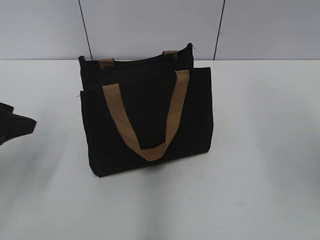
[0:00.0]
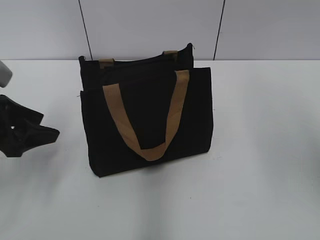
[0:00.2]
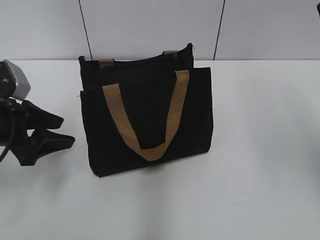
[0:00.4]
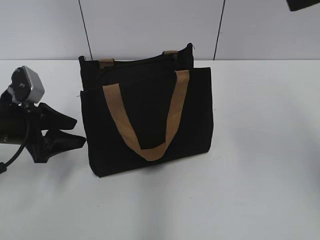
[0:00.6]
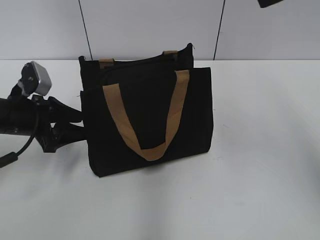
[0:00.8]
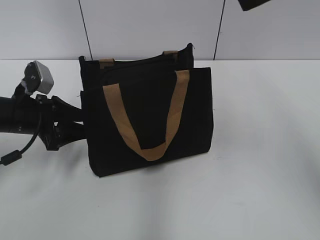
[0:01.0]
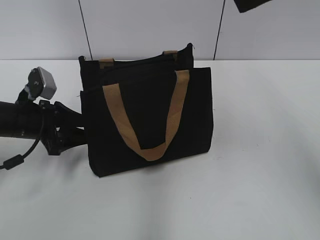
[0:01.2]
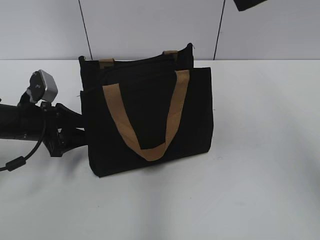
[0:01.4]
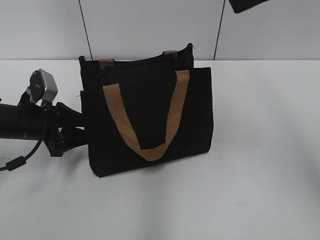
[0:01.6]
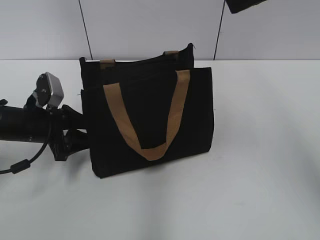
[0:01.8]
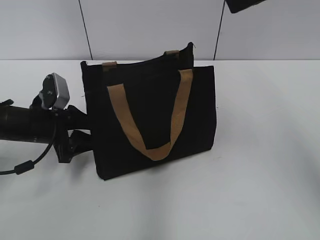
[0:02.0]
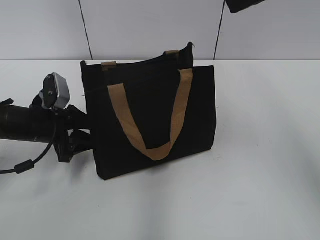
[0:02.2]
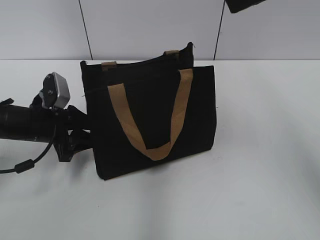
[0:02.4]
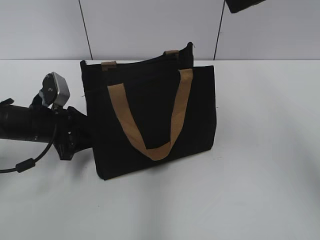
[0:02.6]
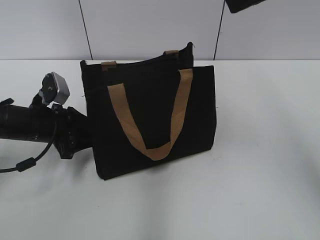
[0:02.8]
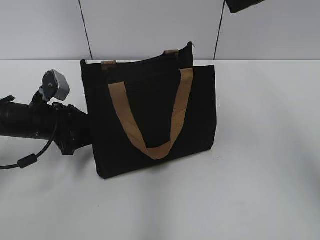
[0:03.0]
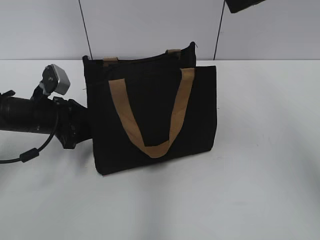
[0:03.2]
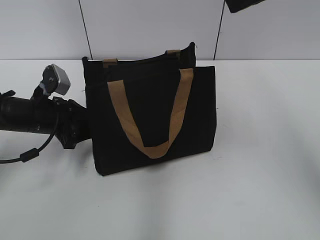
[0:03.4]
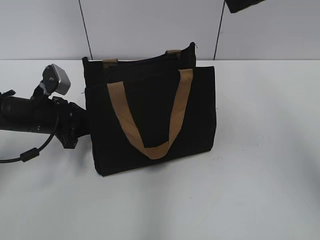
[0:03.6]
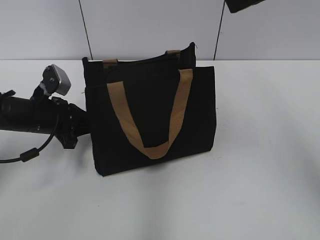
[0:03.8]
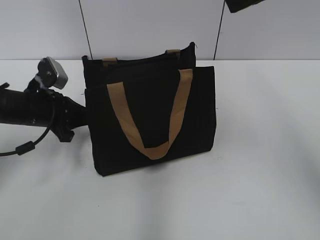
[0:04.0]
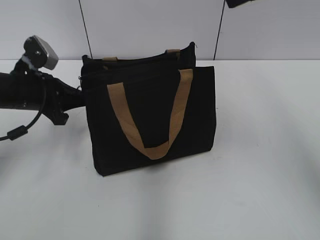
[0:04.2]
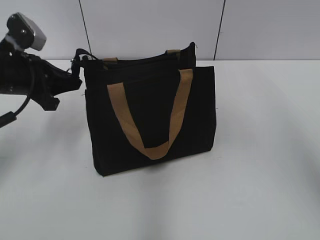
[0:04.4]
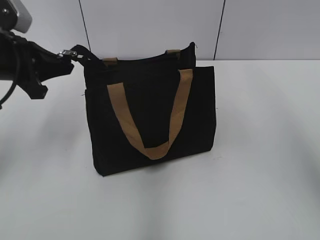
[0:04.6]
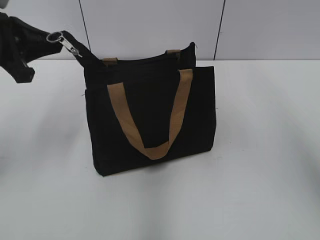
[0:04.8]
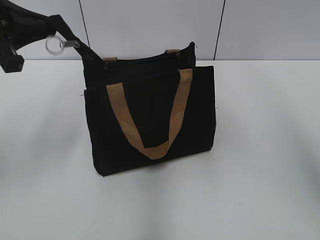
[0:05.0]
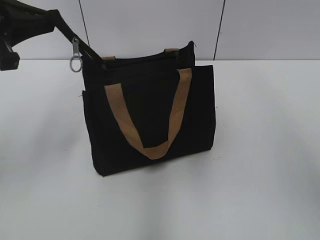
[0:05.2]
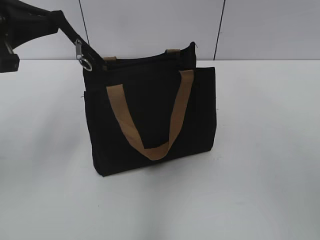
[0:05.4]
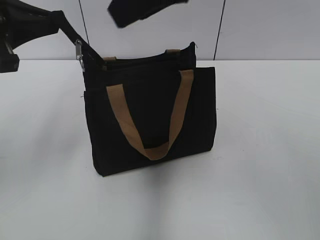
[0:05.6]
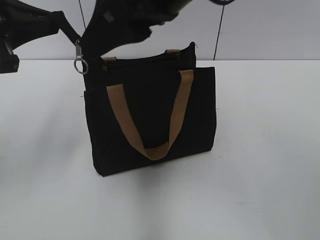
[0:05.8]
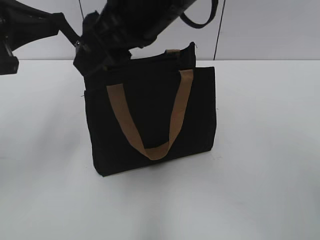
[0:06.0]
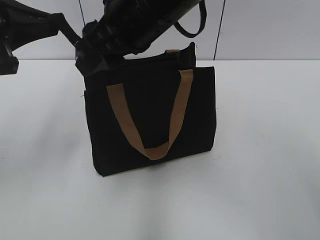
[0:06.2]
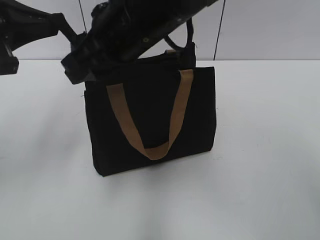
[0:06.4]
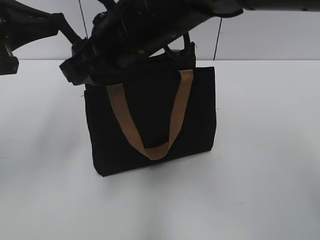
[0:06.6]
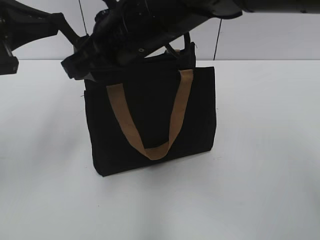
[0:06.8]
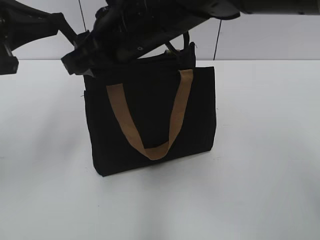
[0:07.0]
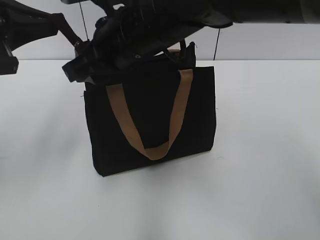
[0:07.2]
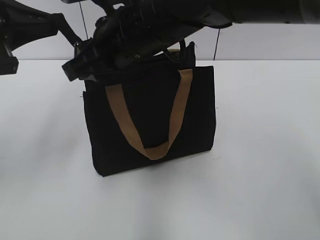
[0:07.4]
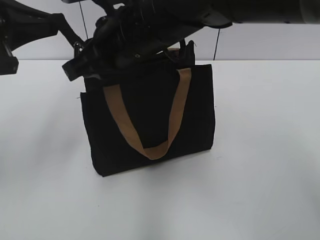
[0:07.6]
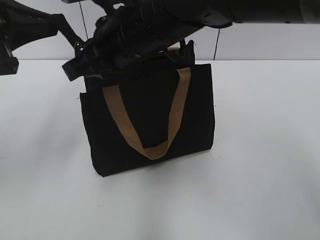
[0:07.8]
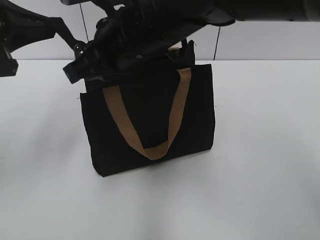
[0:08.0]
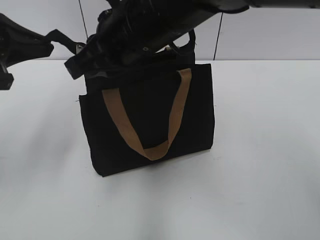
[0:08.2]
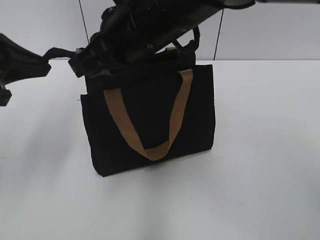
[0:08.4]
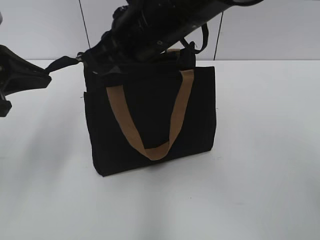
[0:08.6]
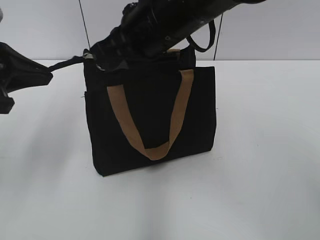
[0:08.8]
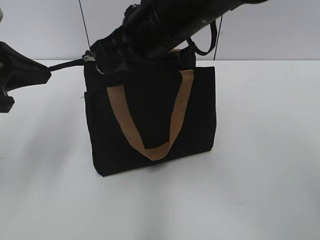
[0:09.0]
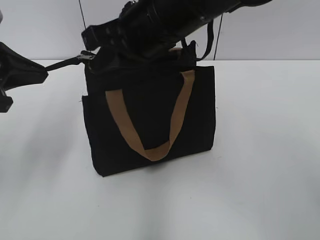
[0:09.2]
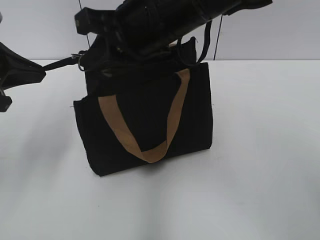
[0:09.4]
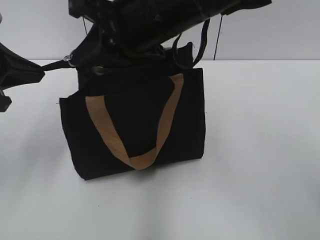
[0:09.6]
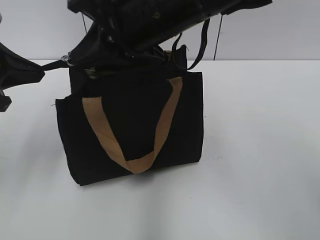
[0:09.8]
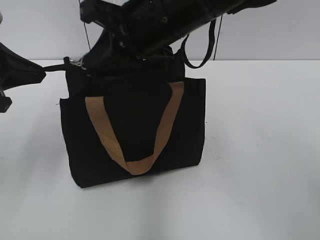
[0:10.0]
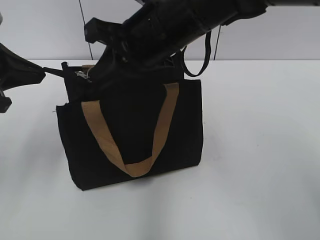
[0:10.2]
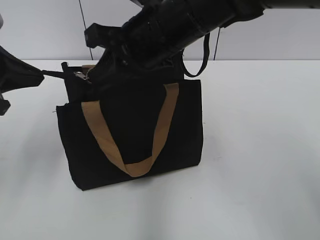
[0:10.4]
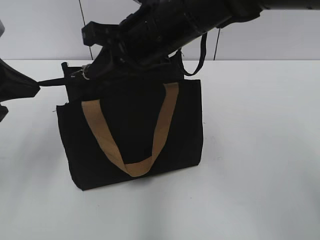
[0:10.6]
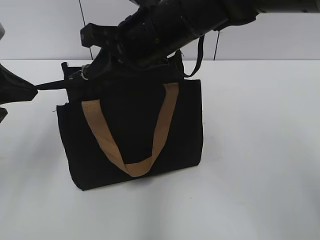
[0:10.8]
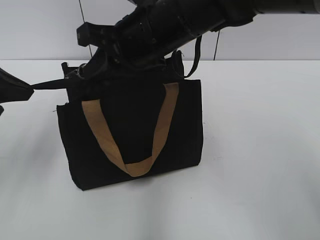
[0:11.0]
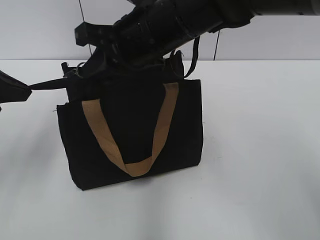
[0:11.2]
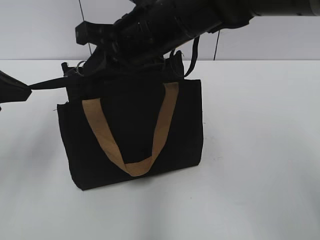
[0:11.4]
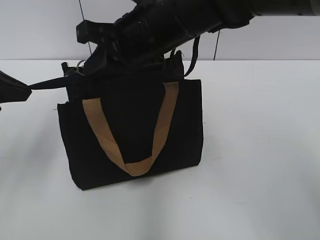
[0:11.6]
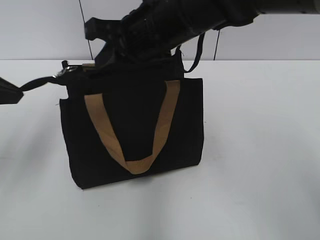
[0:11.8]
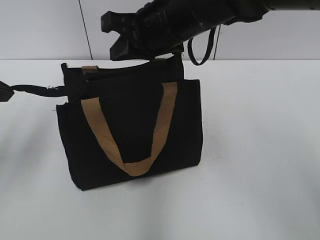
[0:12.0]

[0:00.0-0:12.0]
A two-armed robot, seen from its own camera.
0:00.0 to 0:01.6: The left gripper heads downward and forward, covering about 15 cm.
0:01.6 to 0:03.0: The grippers stay close to where they were, moving slightly.
0:03.0 to 0:04.4: The left gripper goes approximately 10 cm upward, and closes up.
0:04.4 to 0:06.0: The right gripper shifts about 20 cm to the left and downward; the left gripper moves upward and backward, some 15 cm.
0:06.0 to 0:07.6: The right gripper moves downward, about 5 cm, and closes up.
0:07.6 to 0:09.0: There are only small adjustments of the grippers.
0:10.4 to 0:12.0: The grippers make only small movements.

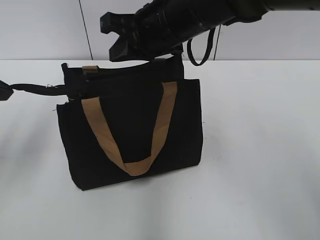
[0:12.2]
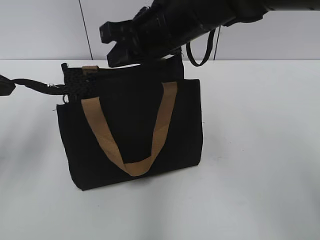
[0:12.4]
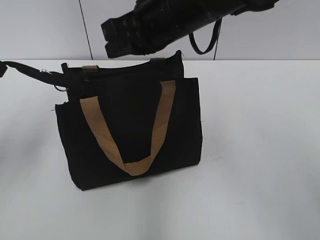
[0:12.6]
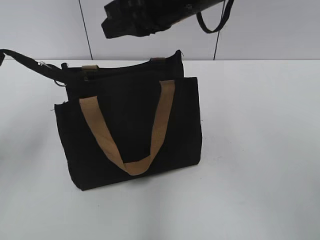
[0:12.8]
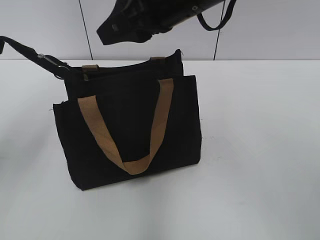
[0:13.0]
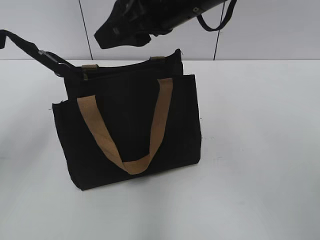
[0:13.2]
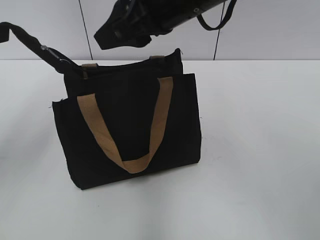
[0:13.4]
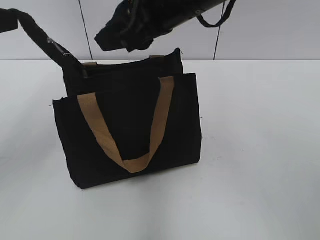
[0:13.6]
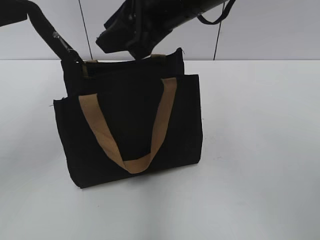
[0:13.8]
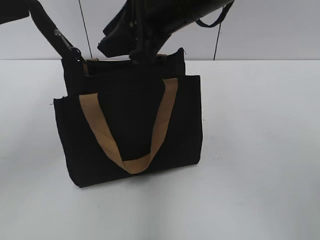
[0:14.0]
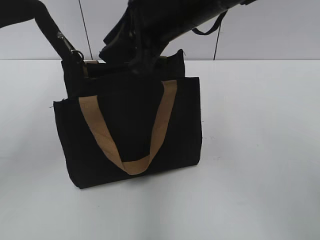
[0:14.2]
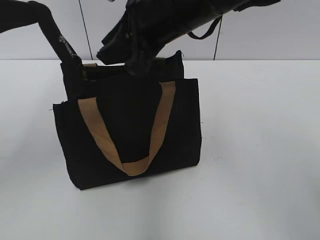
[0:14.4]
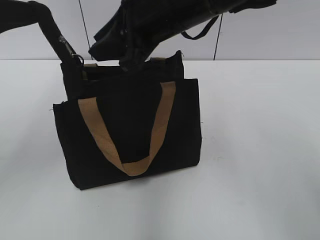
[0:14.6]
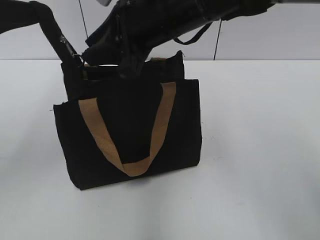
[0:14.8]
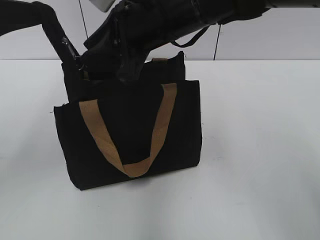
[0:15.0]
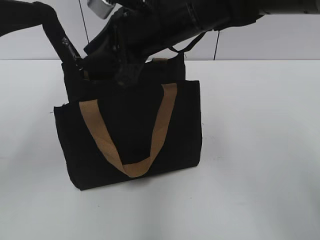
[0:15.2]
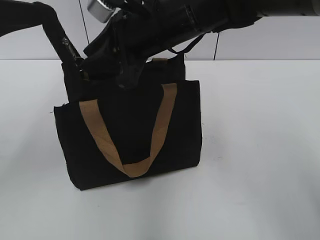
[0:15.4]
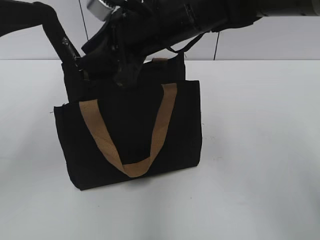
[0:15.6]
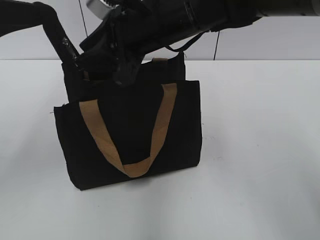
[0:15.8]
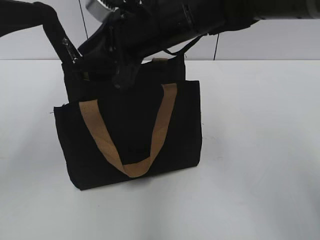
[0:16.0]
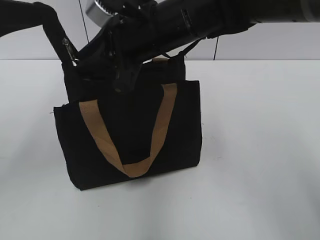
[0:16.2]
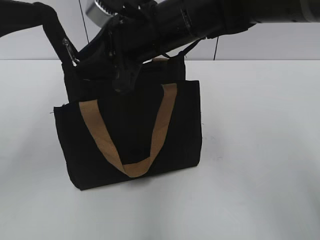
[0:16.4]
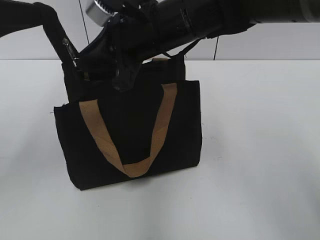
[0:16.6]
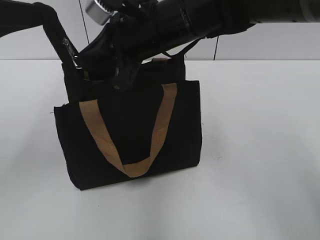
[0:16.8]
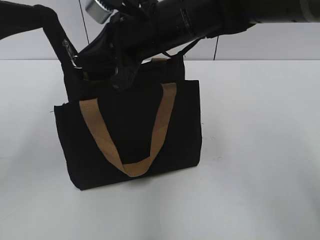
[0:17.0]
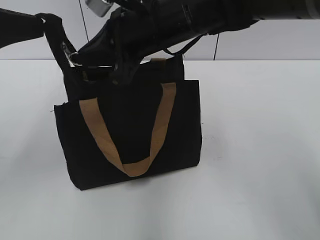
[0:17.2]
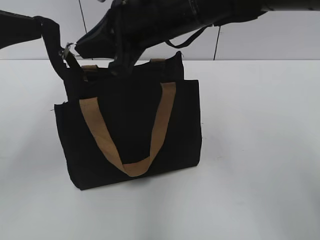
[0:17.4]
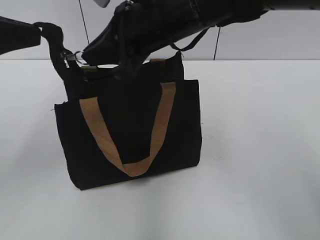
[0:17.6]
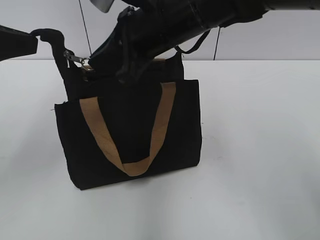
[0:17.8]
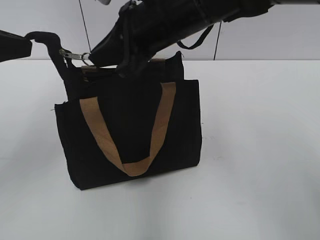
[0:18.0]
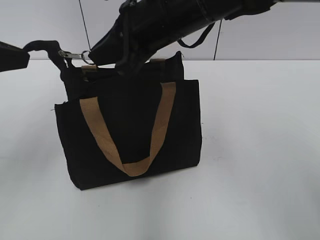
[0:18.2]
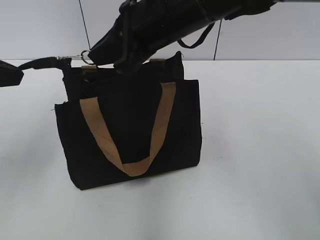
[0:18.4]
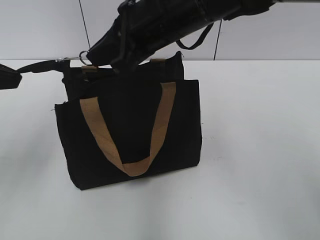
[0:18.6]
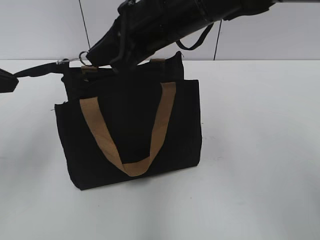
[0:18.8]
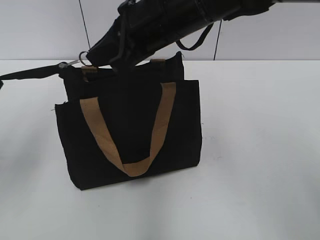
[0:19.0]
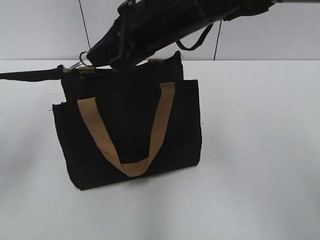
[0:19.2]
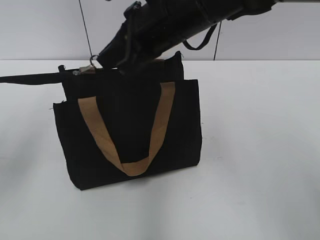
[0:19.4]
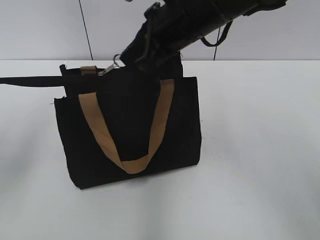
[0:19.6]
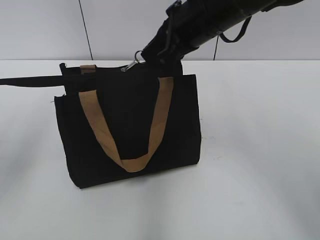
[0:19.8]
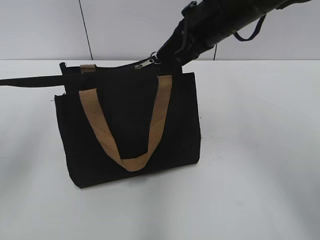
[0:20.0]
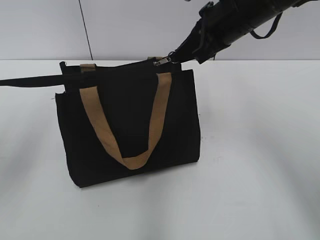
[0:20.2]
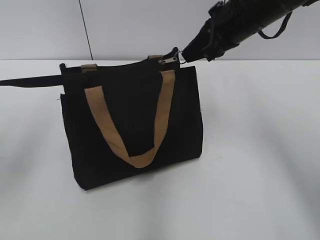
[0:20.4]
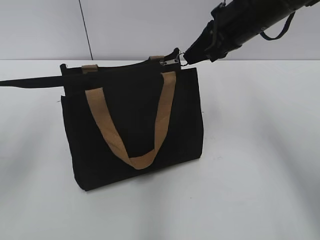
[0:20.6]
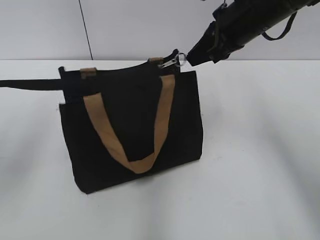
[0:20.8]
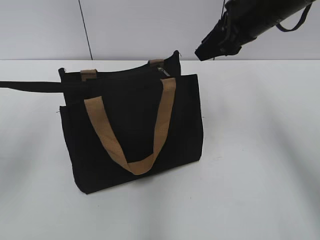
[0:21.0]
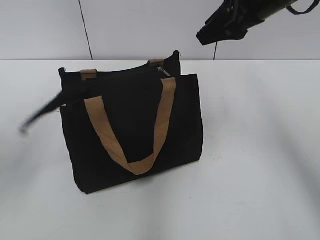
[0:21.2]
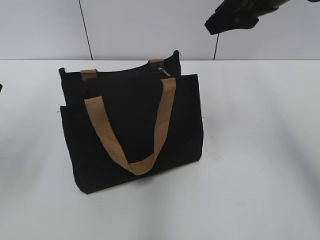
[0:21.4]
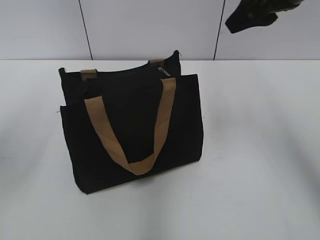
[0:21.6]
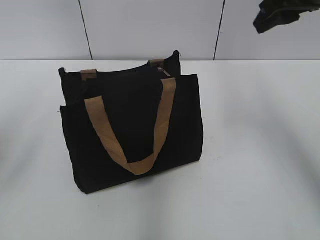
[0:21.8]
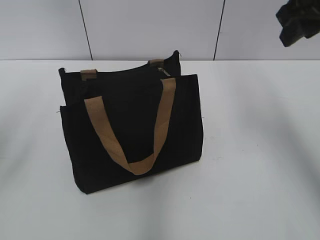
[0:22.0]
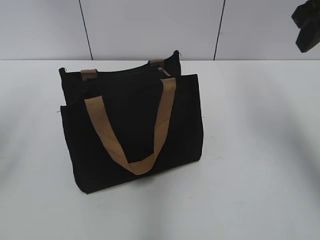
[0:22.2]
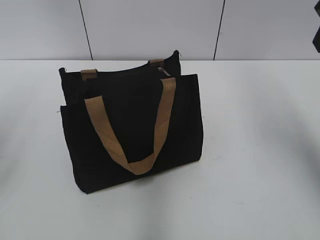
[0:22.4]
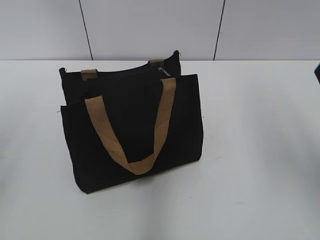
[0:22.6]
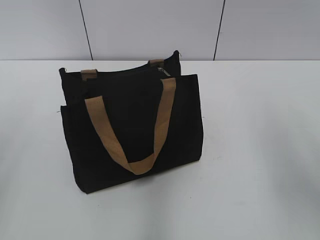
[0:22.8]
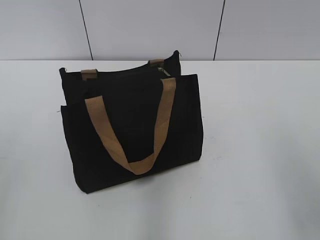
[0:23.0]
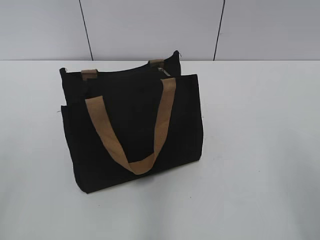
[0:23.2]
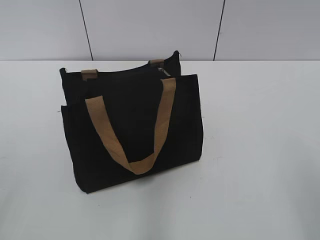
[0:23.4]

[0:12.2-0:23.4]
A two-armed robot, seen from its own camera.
Step, 0:12.2 to 0:20.8: Zip up the bag with your right hand.
0:12.2 to 0:13.8: The two grippers go about 5 cm upward. The right gripper opens up.
0:13.8 to 0:15.4: The right gripper goes approximately 5 cm downward.
0:15.4 to 0:17.0: The right gripper closes its fingers.
0:18.6 to 0:20.2: The right gripper heads to the right and forward, covering about 10 cm.
0:20.2 to 0:21.8: The left gripper opens. The right gripper moves to the right and upward, roughly 10 cm, and opens up.
0:21.8 to 0:23.4: The right gripper moves backward, roughly 30 cm; the left gripper travels backward by about 20 cm.
